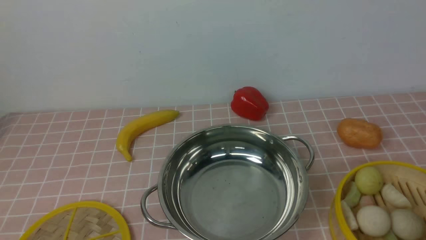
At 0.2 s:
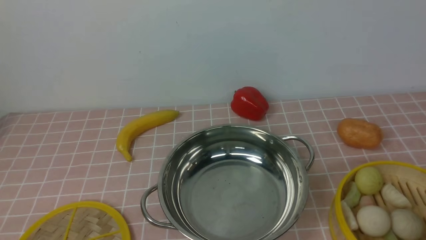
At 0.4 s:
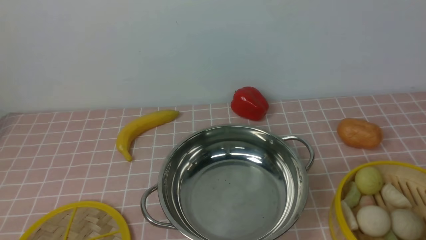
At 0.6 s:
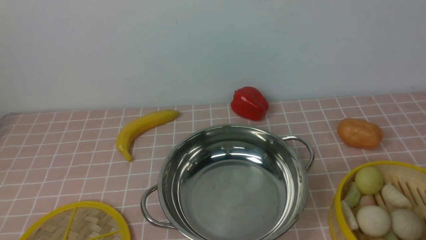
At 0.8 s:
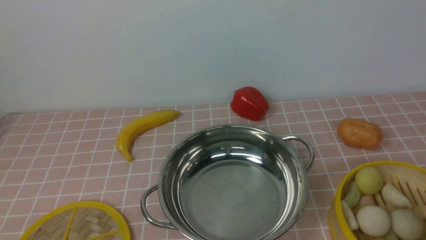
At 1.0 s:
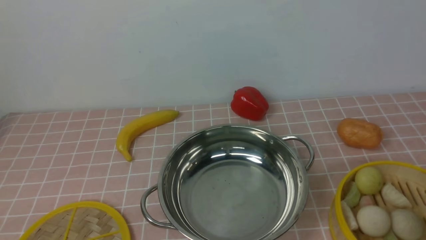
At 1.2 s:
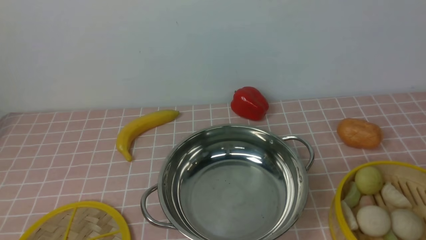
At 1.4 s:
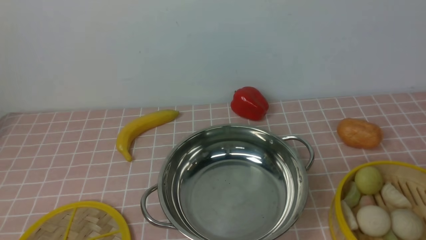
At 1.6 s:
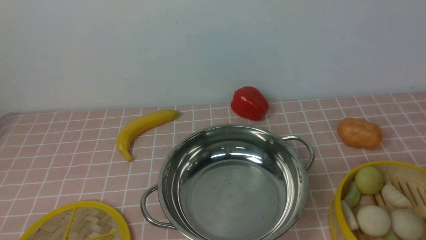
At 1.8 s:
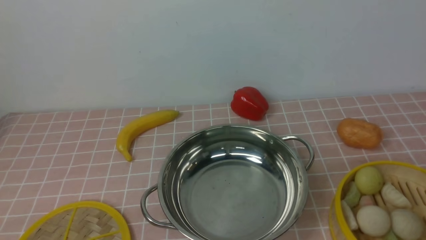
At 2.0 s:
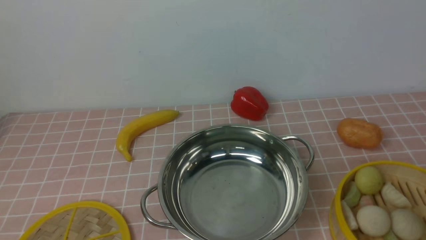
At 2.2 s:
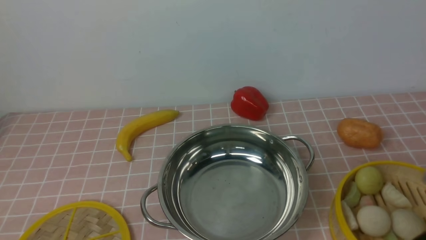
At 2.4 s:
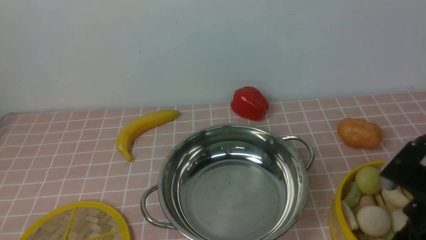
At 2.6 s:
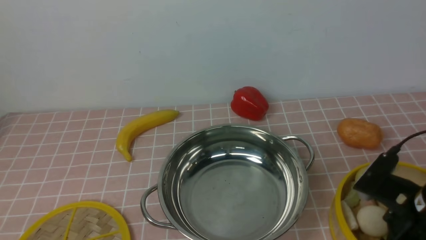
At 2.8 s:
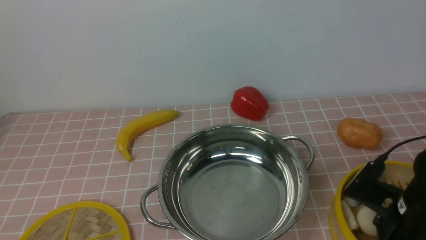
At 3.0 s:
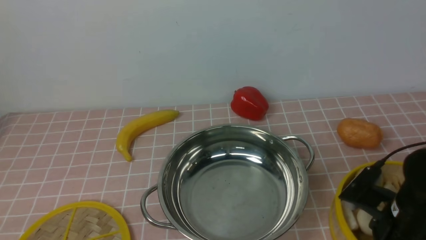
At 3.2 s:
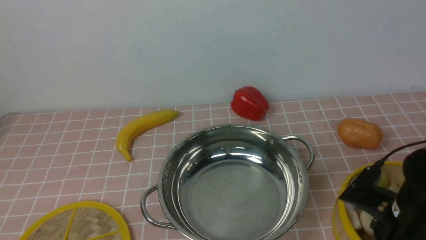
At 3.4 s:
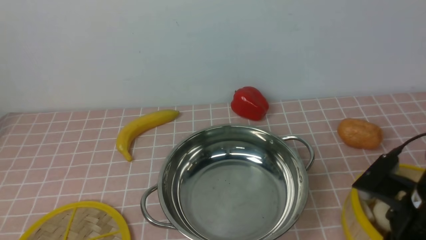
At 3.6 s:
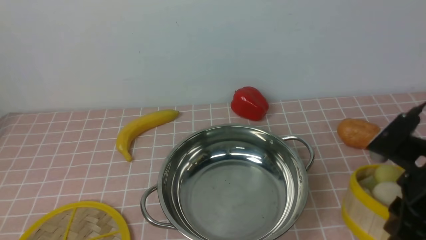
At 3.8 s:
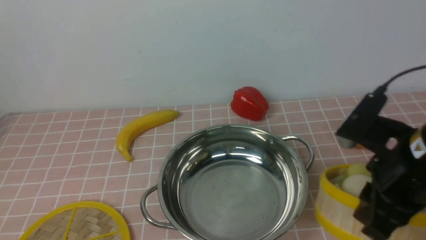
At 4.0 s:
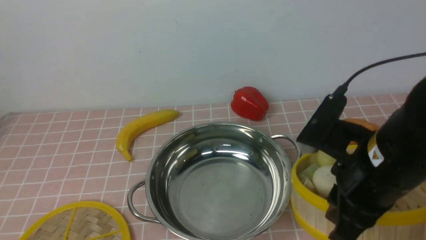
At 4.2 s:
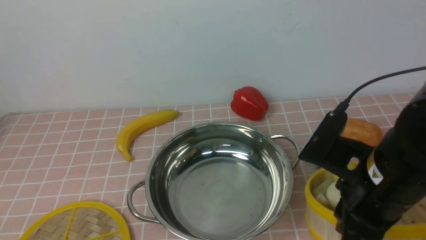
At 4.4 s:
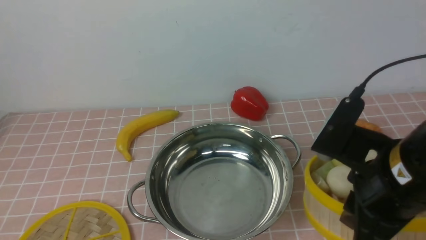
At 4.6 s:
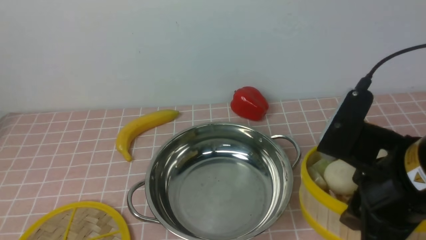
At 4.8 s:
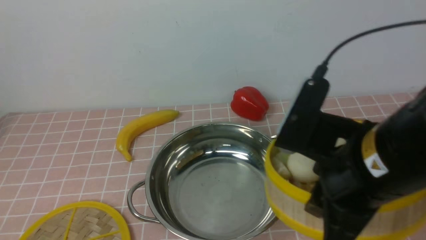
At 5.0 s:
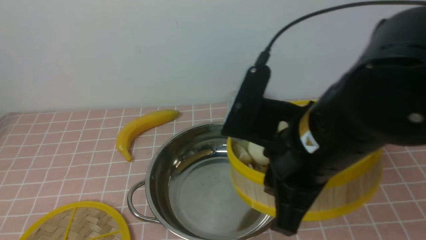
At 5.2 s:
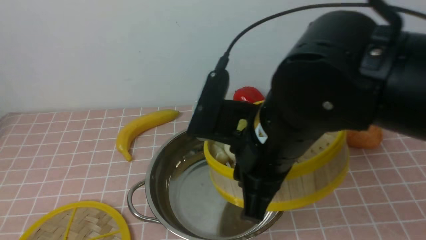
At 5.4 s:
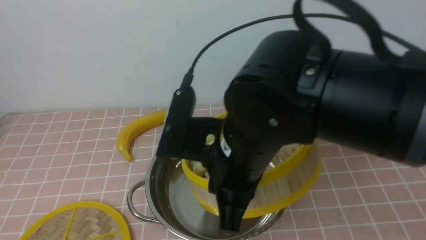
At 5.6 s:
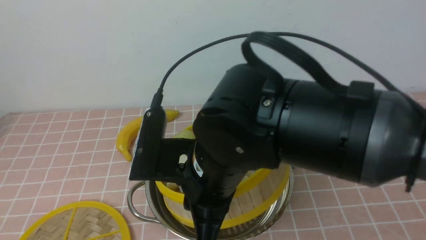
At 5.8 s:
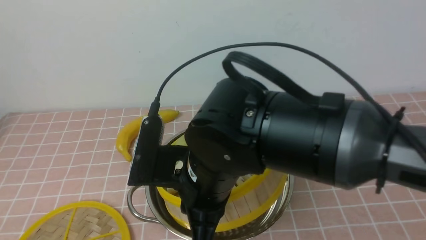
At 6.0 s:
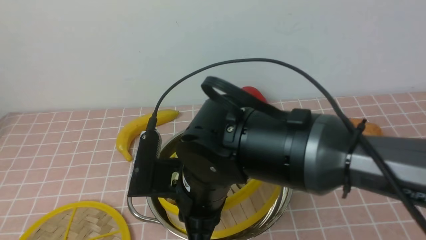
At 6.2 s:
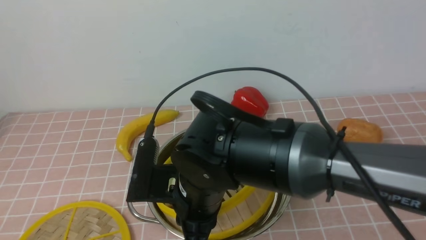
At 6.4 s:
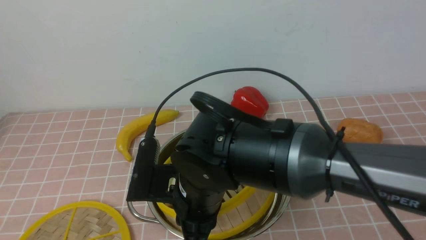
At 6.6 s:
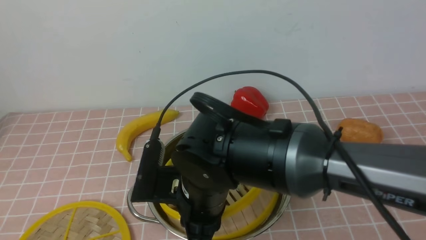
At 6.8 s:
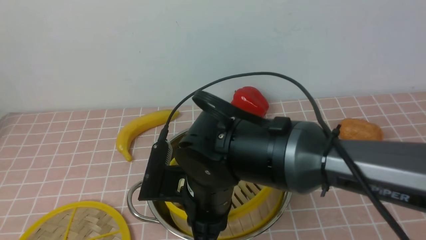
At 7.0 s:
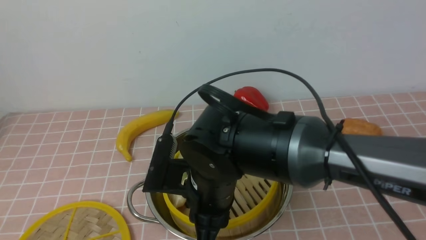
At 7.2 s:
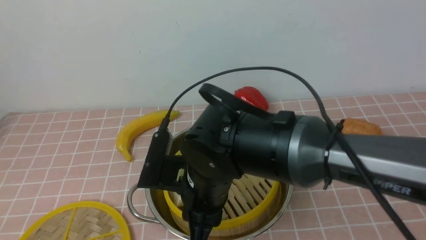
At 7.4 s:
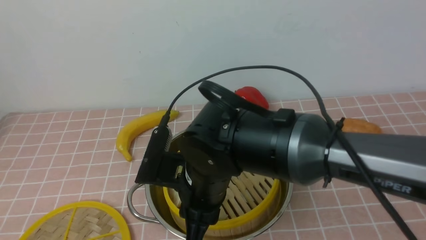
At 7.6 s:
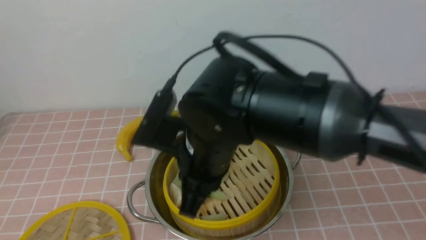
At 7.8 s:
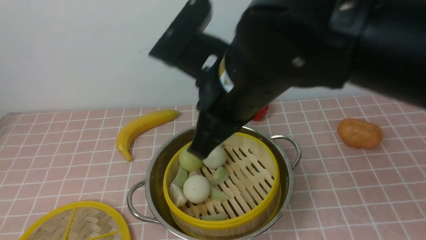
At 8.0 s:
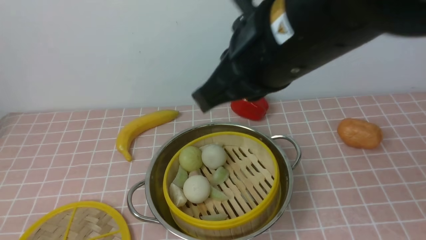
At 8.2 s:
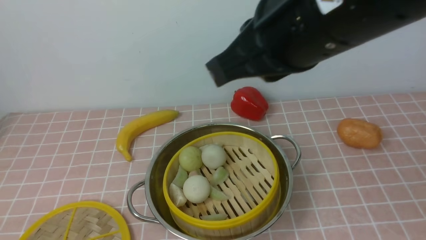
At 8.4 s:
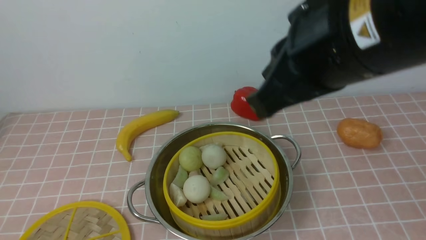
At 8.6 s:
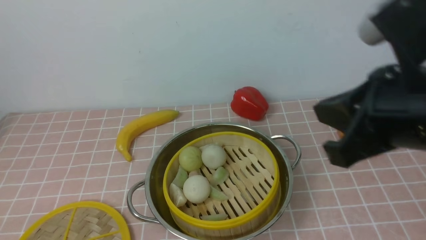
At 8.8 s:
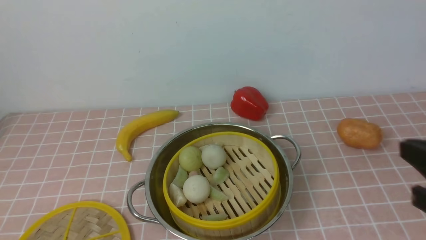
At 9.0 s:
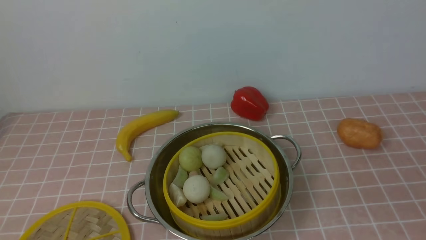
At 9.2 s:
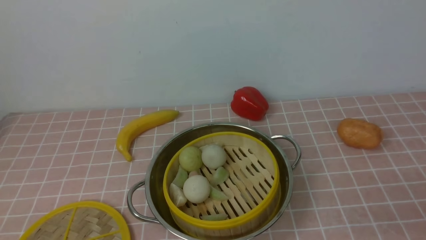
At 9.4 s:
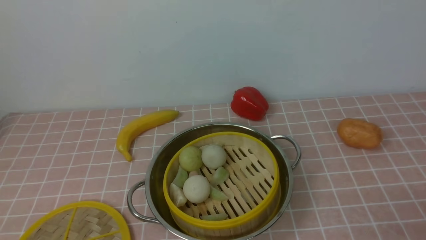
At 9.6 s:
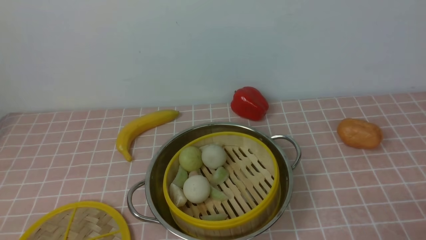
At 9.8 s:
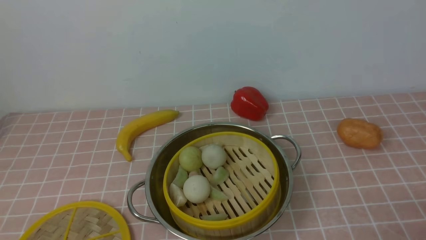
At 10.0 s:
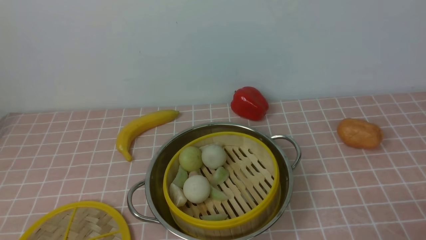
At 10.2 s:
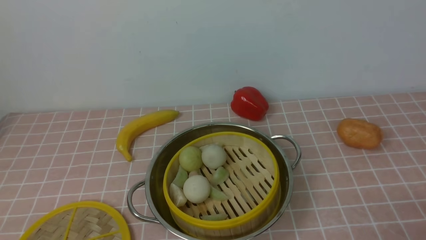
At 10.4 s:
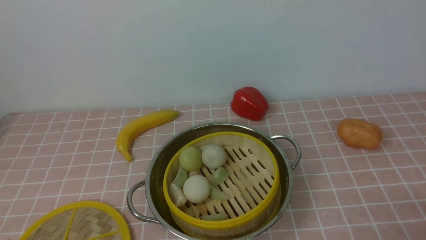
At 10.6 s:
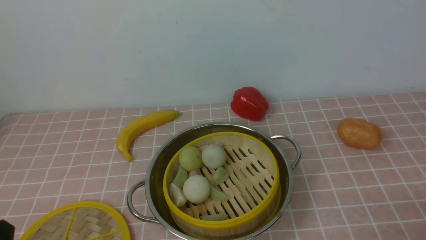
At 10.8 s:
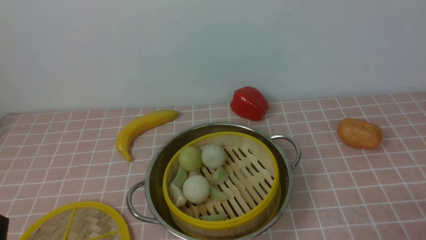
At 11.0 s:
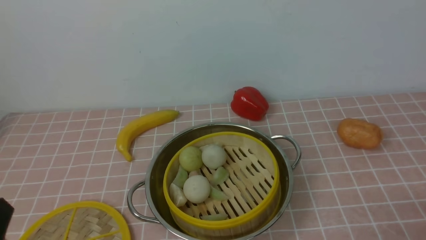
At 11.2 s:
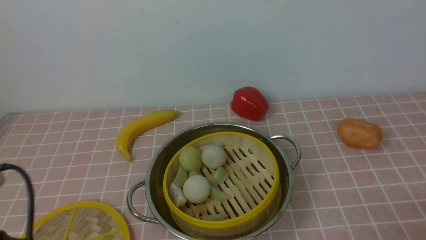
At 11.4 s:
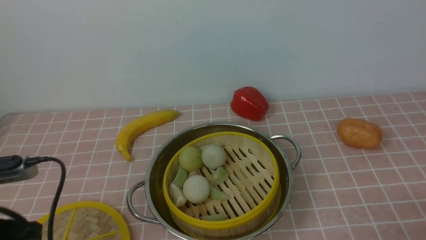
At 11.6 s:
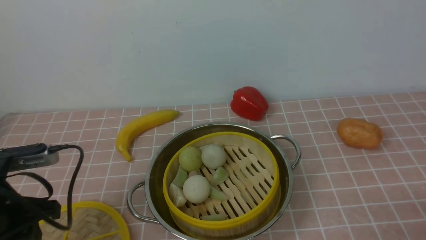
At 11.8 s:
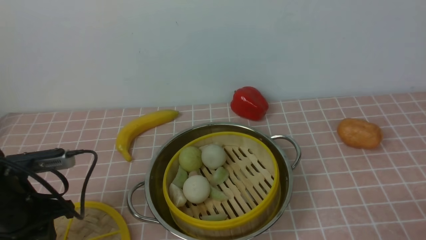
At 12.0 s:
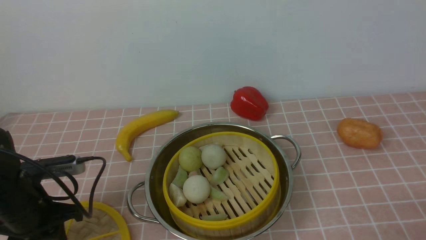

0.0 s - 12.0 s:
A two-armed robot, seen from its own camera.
Task of the whole recording: place the steamer in the pot on the pink tablecloth, and put the lid on the steamer.
Step, 0.0 s - 3.4 s: use the right arm to lift the steamer closest to it.
Step, 3.6 s - 7.4 s: use the right arm to put the steamer into the iron steamer pot in the middle.
1.6 s - 3.0 s: The right gripper goes roughly 20 cm forward and downward.
3.0 s - 4.4 s: The right gripper travels upward and to the left by roughly 15 cm, and closes its fingers.
4.4 s - 6.0 s: The right gripper is displaced to the left by about 20 cm.
6.0 s - 7.6 s: The right gripper goes roughly 5 cm upward.
7.6 s - 9.0 s: The right gripper shifts approximately 35 cm to the right and backward.
10.4 s - 12.0 s: The left gripper moves forward, some 20 cm.

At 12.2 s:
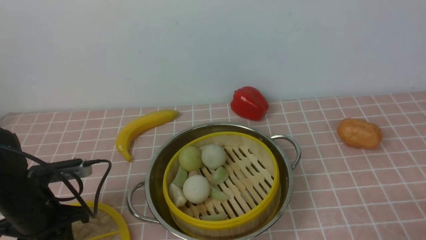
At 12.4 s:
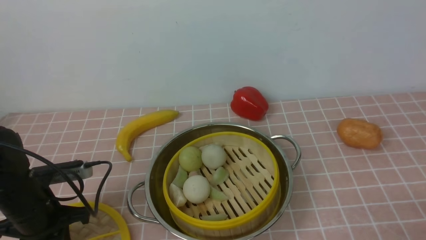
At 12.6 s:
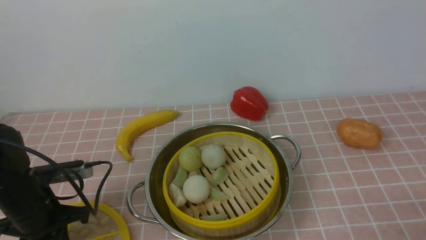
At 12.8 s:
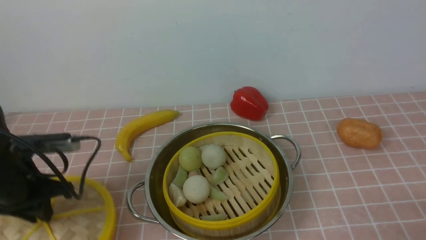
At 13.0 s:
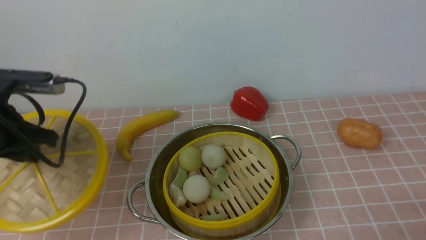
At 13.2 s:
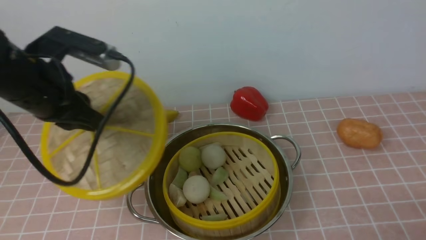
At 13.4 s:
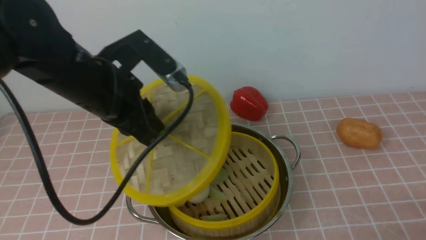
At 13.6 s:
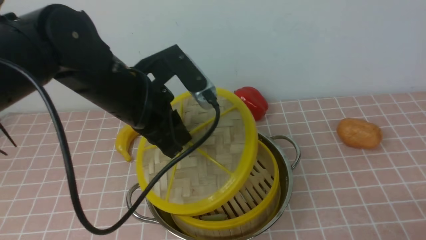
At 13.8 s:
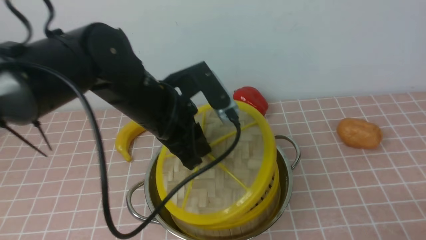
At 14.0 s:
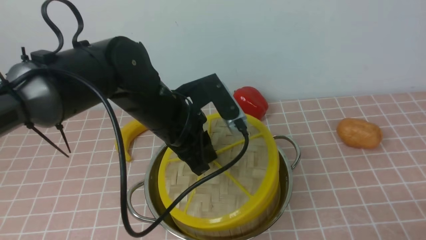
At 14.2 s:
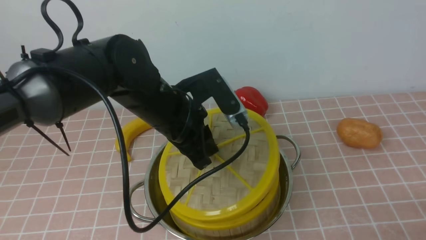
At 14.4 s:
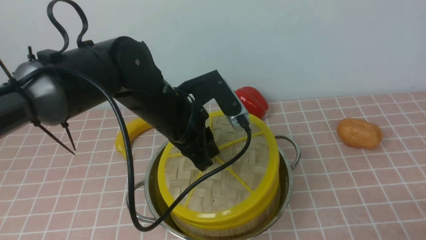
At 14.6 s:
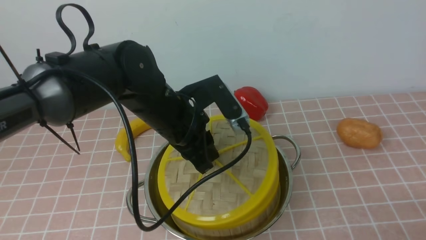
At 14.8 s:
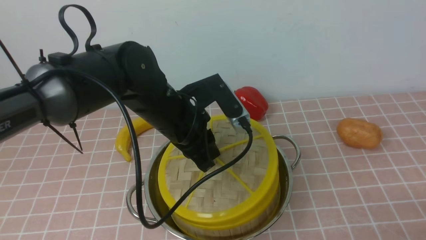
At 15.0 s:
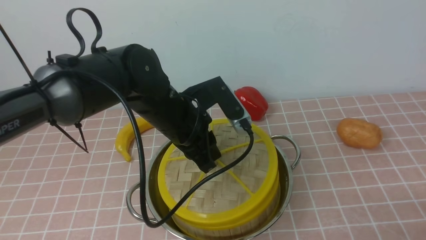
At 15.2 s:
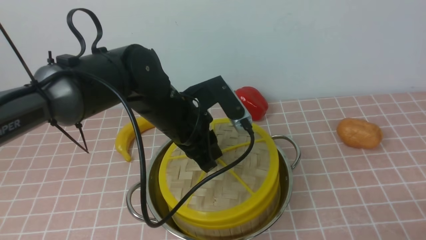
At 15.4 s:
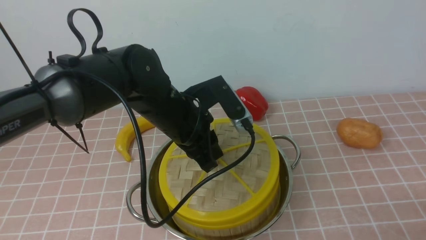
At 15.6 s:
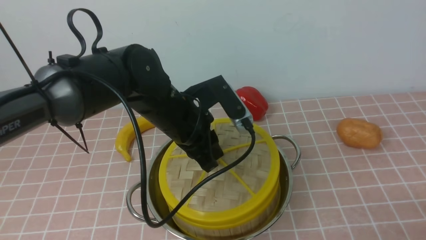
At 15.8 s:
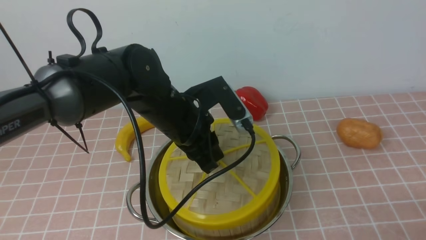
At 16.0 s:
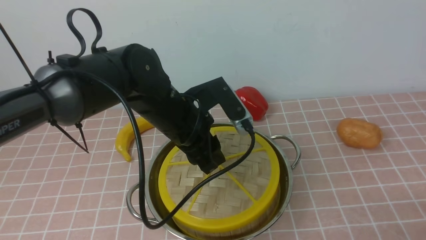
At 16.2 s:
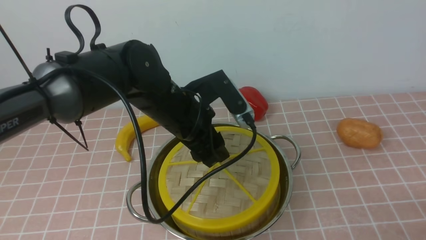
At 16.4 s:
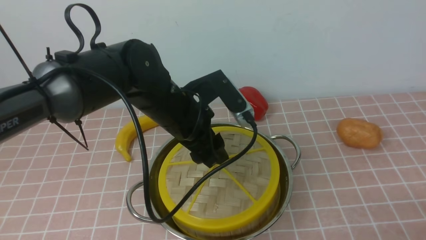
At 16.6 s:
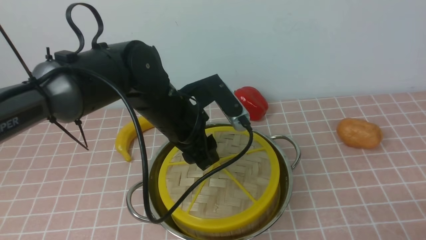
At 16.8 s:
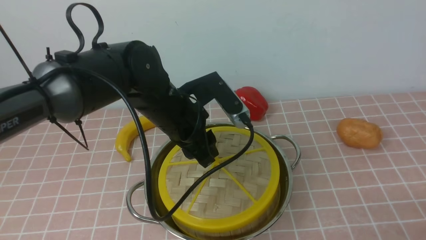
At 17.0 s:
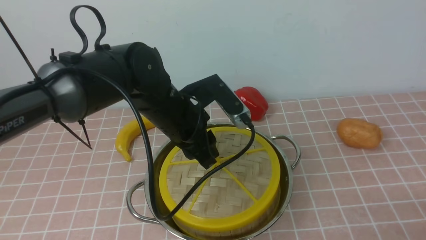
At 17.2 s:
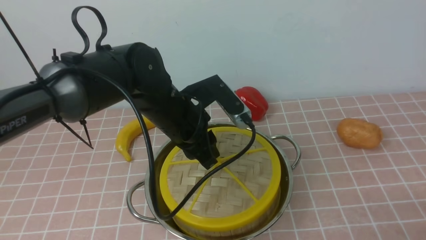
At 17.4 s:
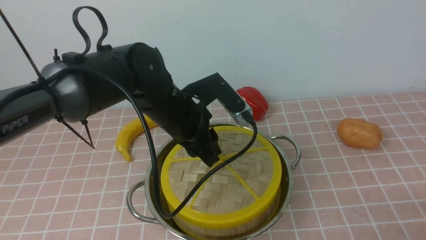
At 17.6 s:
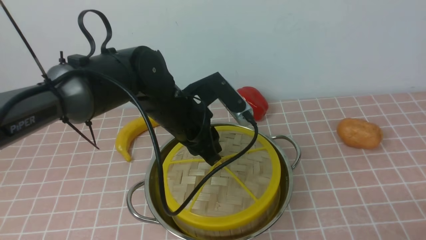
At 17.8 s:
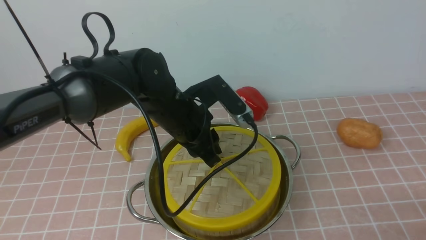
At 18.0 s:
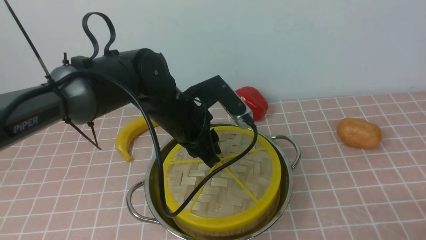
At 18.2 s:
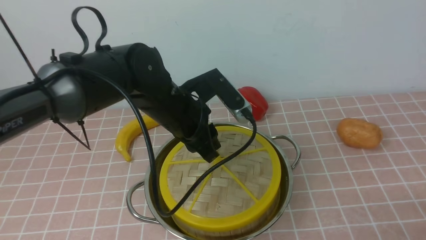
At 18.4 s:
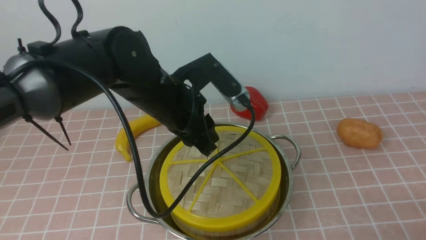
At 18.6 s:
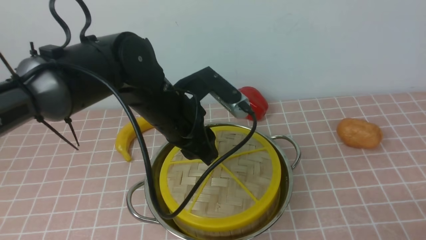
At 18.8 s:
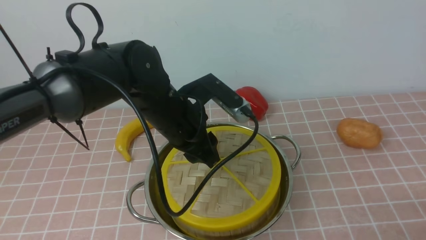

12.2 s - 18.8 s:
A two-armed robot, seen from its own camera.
Task of the whole recording: place the steamer in the pot on the pink tablecloth, and put the lid on the steamer.
12.2 s - 13.8 s: The left gripper travels to the right and upward by about 25 cm.
13.8 s - 15.4 s: There are only small adjustments of the grippers.
15.4 s - 17.2 s: The left gripper opens, then closes once more.
17.2 s - 18.8 s: The grippers move only a little.